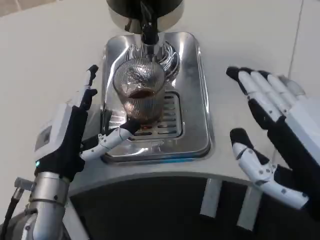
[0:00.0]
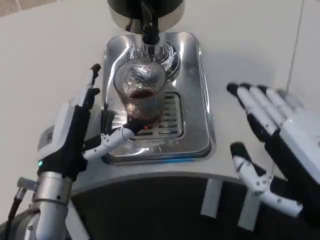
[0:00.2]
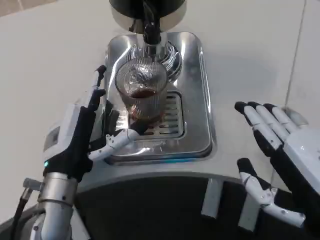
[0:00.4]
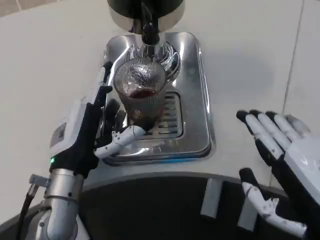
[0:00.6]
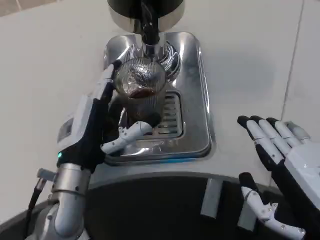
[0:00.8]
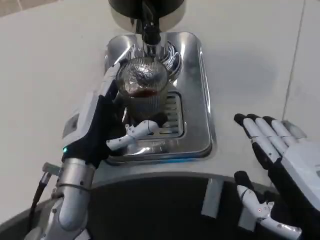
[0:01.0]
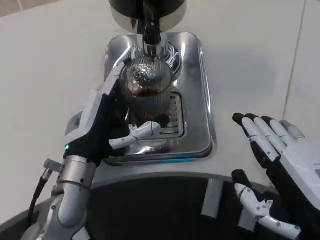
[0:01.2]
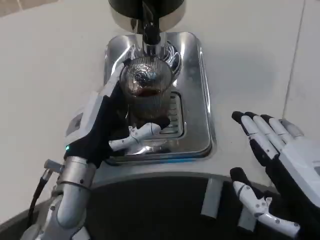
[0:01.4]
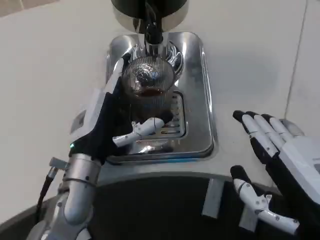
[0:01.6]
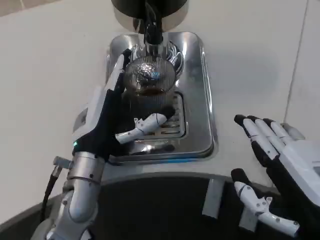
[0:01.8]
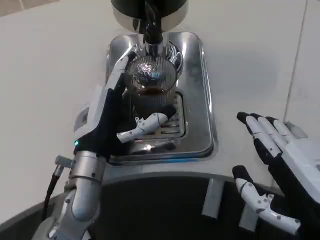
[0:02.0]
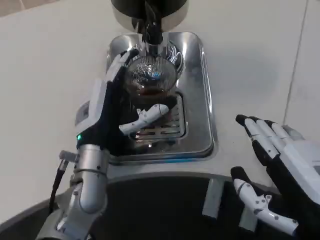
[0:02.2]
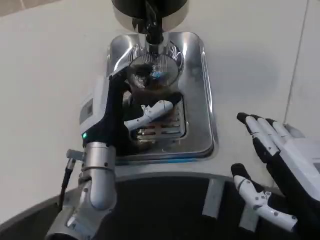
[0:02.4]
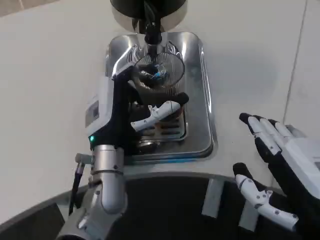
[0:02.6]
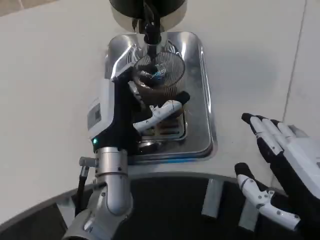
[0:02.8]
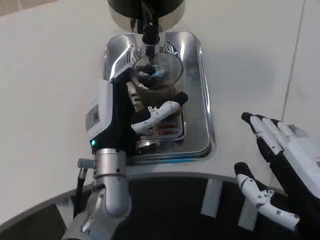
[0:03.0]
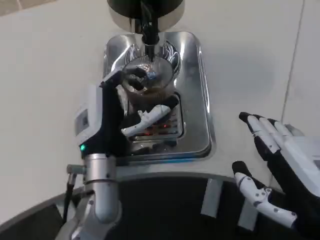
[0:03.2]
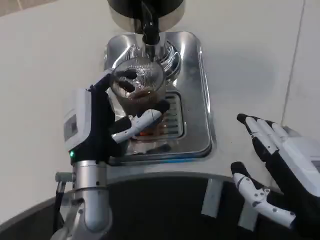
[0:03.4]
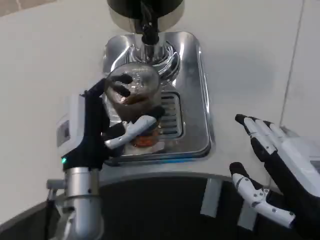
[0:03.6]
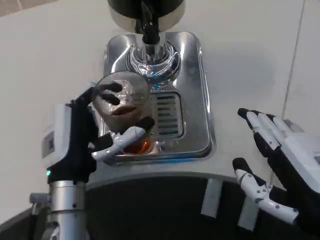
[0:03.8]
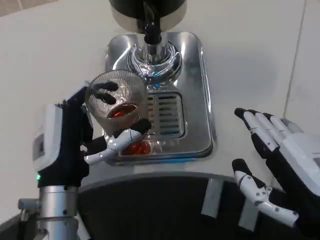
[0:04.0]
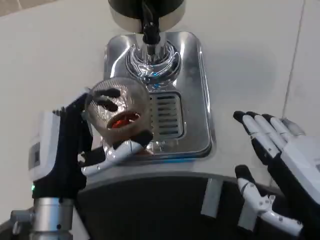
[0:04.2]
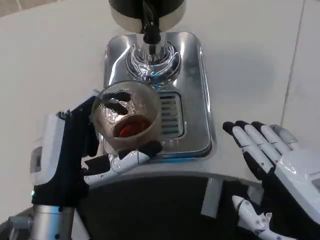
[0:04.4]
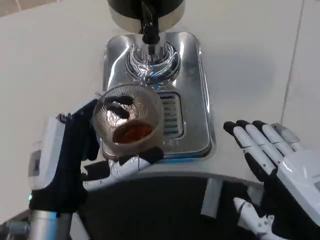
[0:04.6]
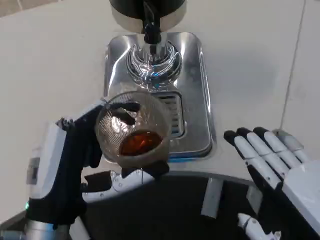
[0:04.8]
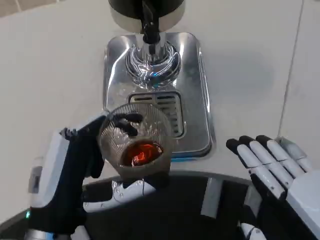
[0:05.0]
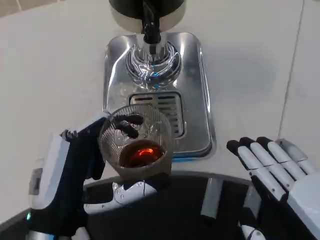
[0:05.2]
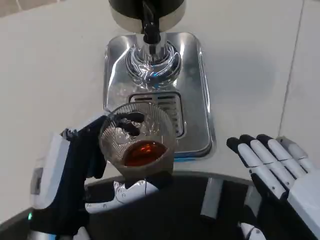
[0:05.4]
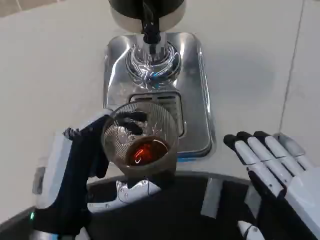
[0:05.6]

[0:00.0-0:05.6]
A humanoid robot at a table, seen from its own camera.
Task of the whole recording: Grasp the cup under the faucet to collect the drink, then remove the cup.
0:01.4 to 0:02.8: The left hand travels to the right by approximately 5 cm.
0:02.8 to 0:04.2: The left hand shifts some 10 cm backward and to the left.
